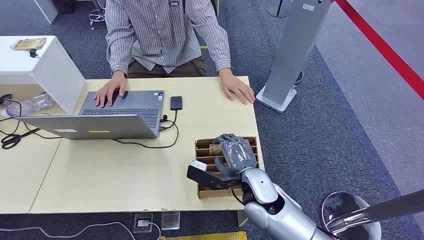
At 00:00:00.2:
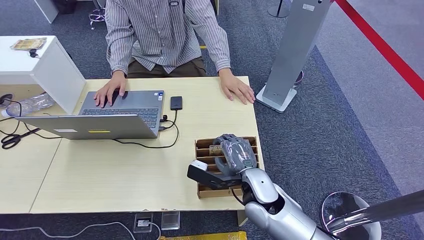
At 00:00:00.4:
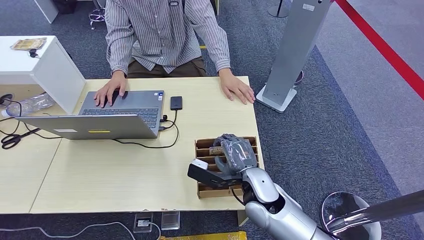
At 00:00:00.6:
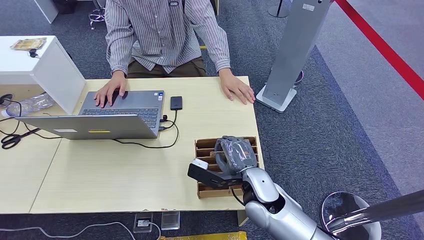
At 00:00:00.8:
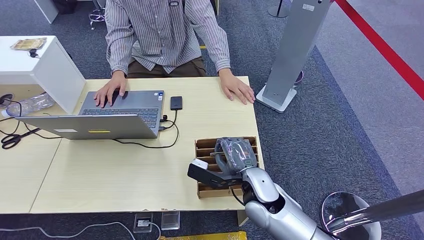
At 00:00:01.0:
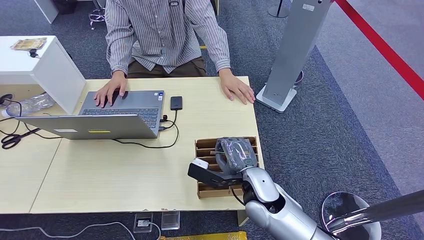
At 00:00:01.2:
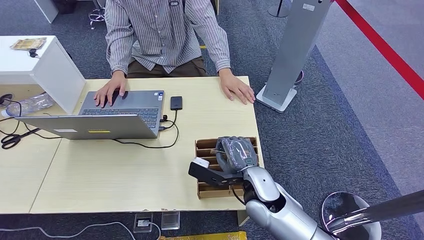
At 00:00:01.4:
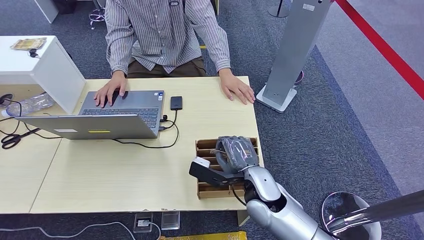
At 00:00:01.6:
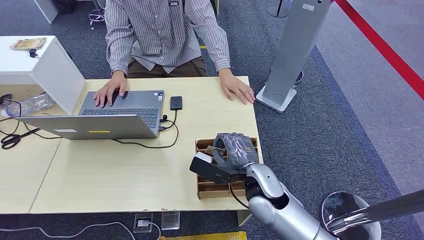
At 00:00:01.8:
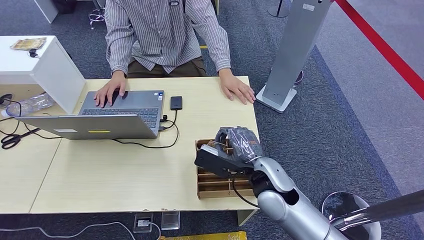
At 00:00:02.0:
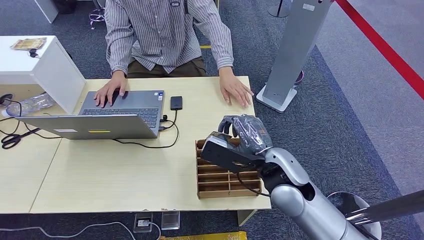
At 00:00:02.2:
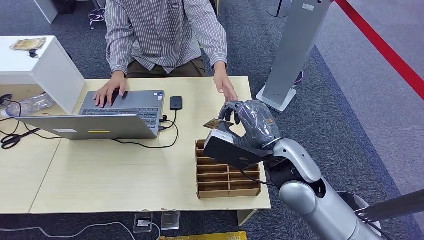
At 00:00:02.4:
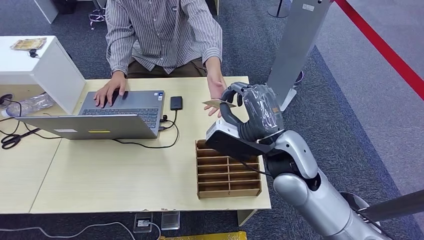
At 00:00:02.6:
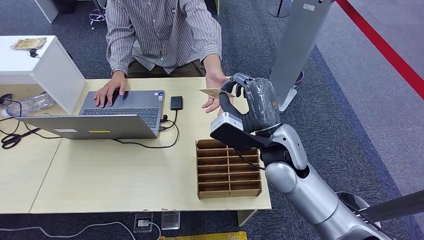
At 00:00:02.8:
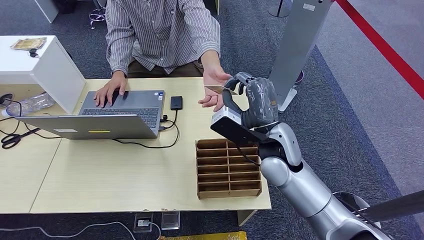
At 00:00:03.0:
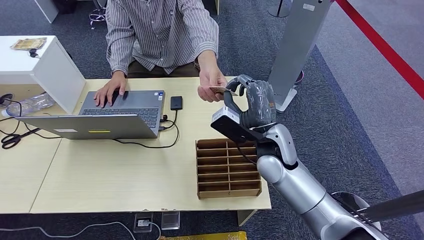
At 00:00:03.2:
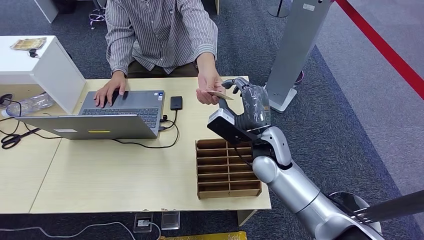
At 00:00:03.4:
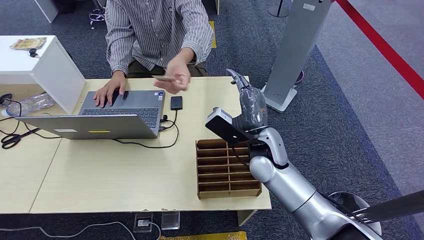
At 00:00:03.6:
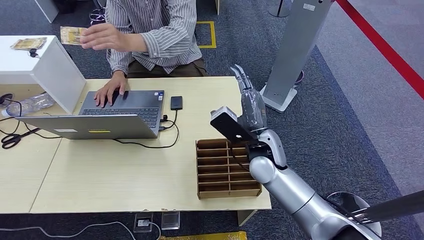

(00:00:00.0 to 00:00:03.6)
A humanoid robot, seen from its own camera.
Step, 00:00:00.0 - 00:00:01.8: Pick up the key card from the card box.
Step, 00:00:02.8 - 00:00:03.6: Hand the key card to the target.
00:00:01.8 - 00:00:03.6: The right hand is displaced forward by approximately 5 cm, and moves some 10 cm upward and comes back.
